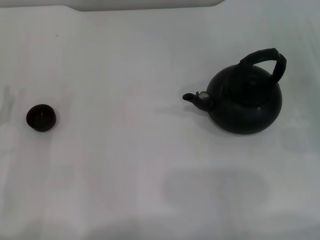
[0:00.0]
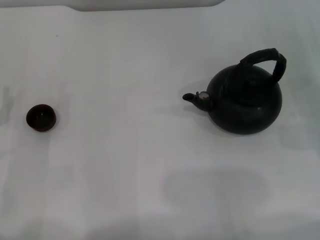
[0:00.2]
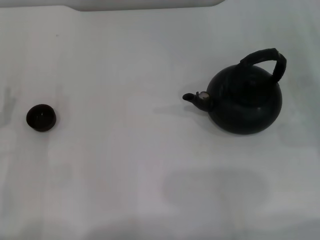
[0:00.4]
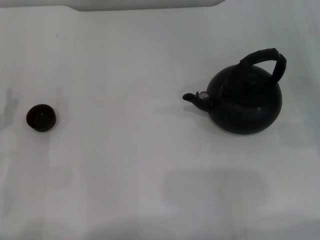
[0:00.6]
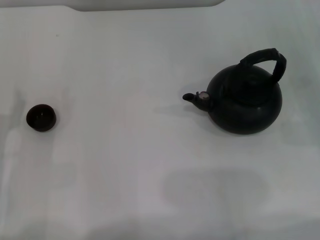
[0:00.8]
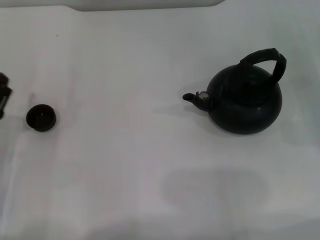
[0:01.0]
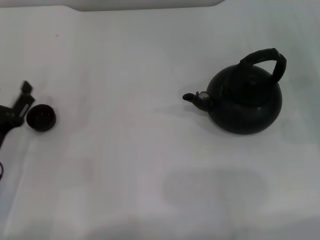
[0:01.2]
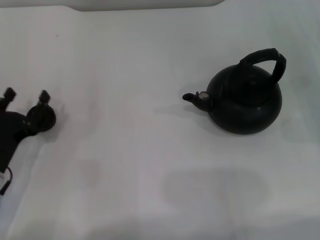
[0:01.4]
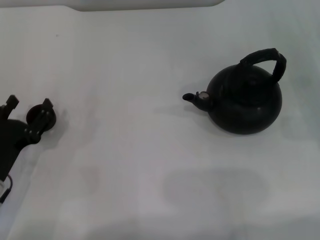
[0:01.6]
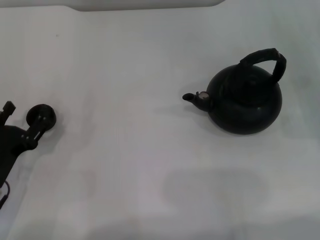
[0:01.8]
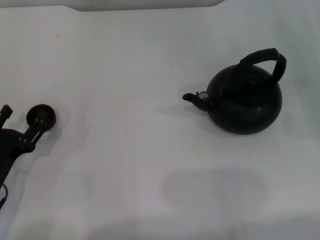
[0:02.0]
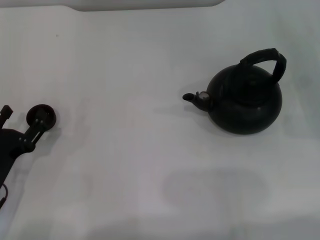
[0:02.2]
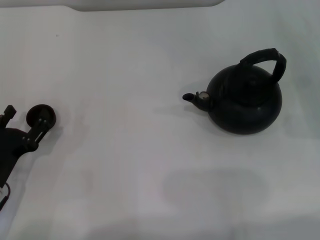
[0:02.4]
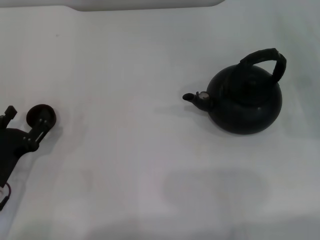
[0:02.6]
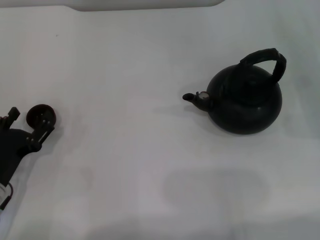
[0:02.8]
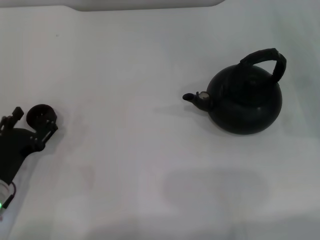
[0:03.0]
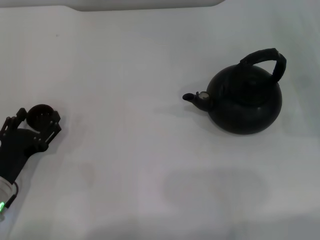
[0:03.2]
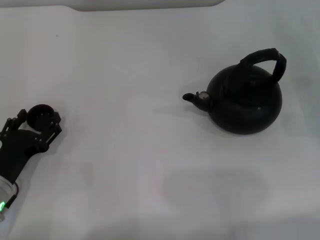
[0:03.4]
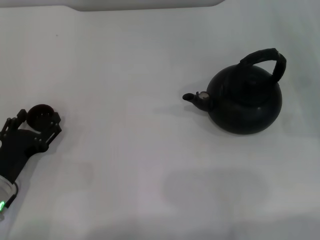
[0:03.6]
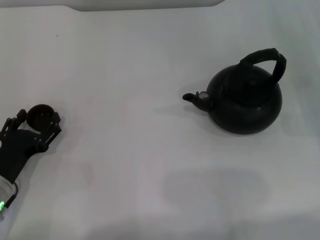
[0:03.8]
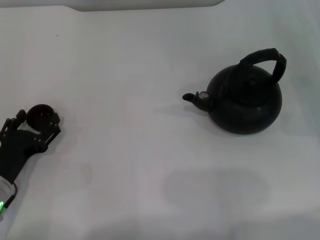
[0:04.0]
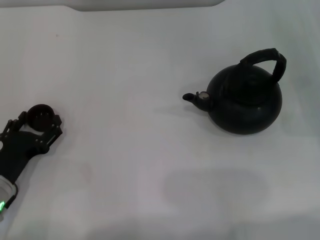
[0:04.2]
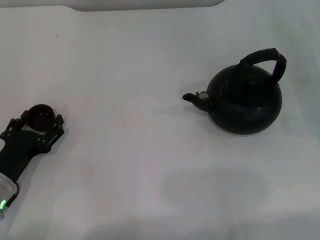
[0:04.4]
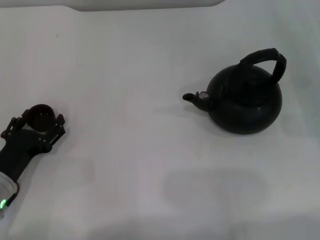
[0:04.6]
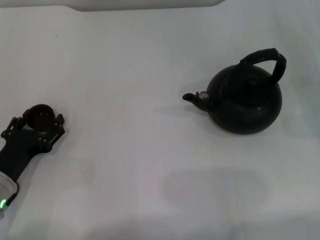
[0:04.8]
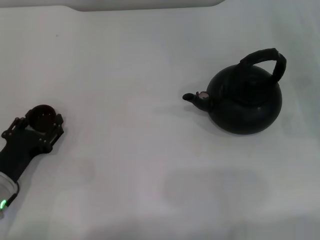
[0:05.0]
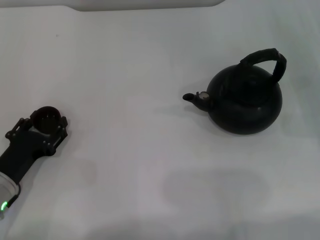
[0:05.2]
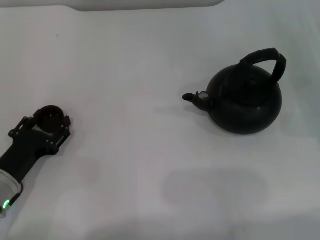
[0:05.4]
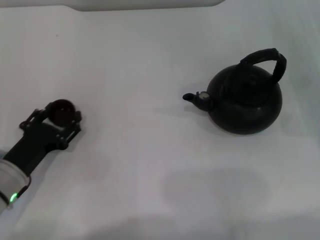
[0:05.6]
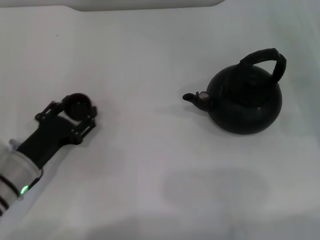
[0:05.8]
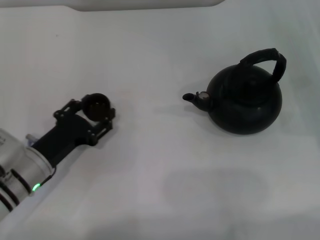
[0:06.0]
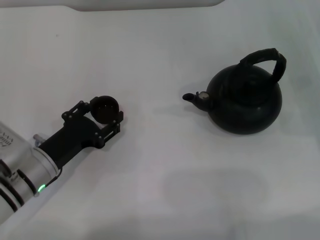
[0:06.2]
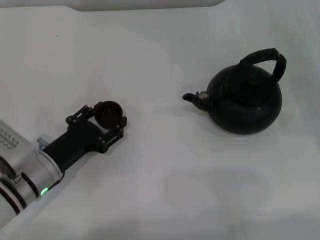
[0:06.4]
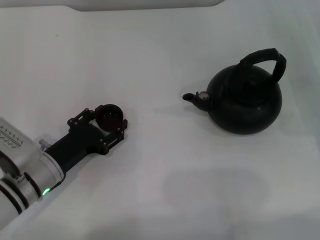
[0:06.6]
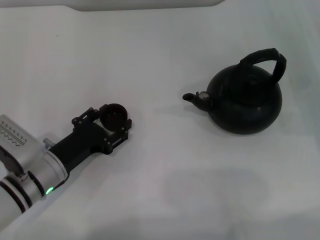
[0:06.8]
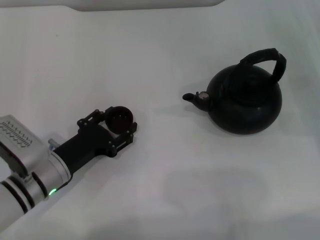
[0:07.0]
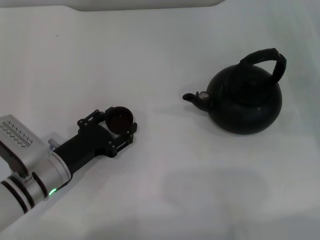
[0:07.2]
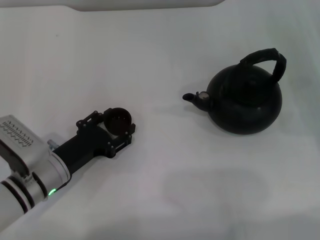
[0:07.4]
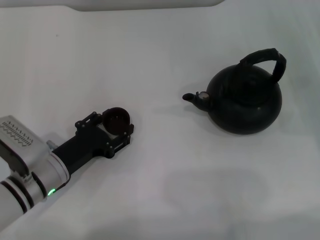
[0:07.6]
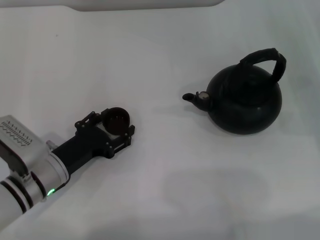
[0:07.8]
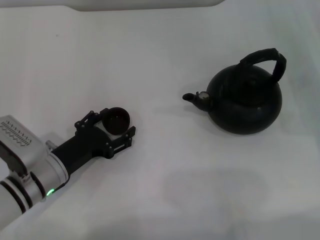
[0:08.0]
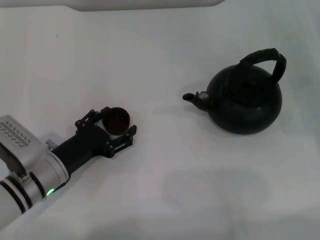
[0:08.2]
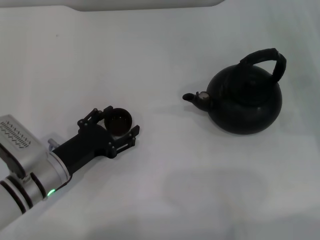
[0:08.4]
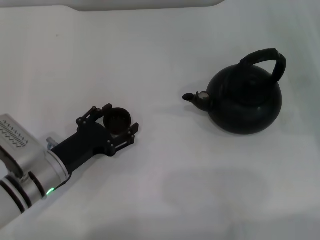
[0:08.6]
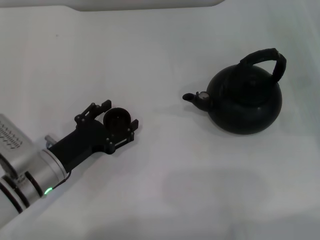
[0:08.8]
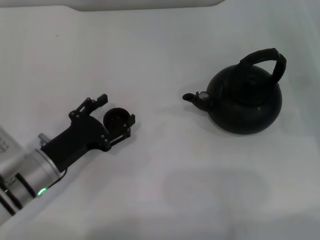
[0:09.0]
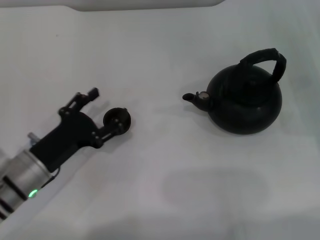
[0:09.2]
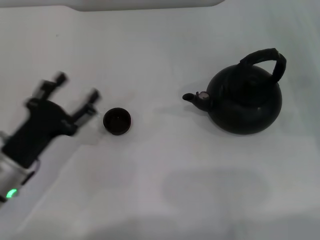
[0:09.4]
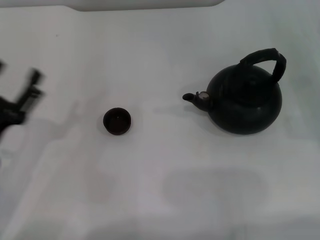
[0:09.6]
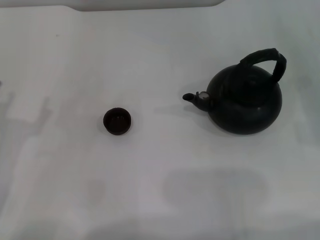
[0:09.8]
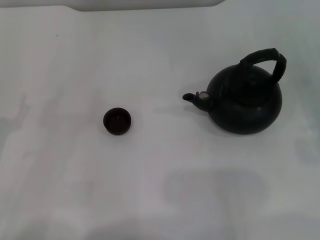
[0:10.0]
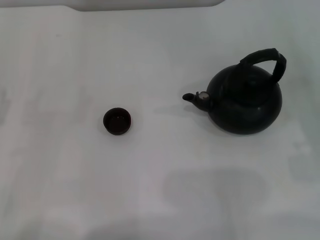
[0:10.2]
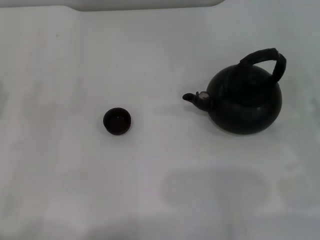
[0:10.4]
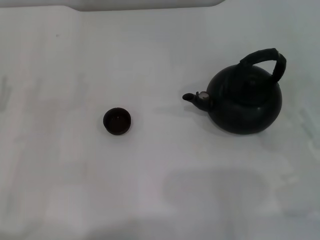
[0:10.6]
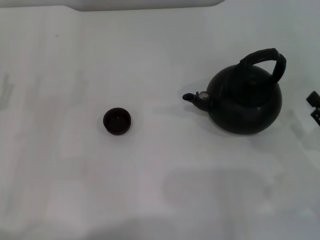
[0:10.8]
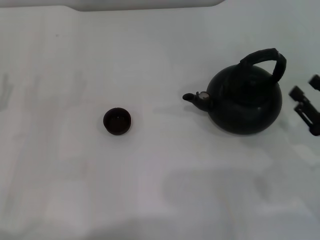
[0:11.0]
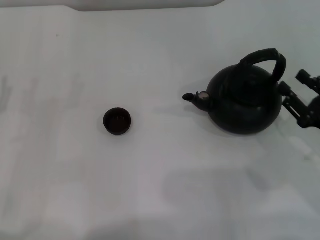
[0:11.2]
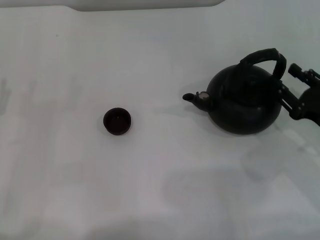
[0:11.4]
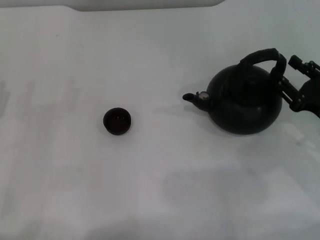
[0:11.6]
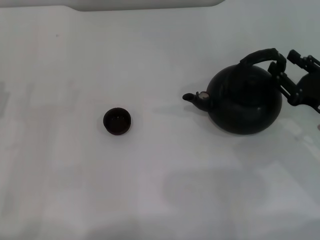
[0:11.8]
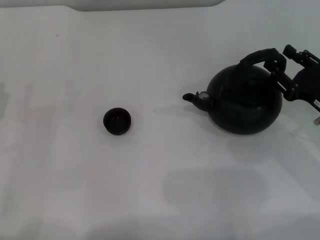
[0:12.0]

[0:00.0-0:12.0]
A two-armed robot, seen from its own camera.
Task of the whole recording: Grasp the handle of the teapot with one hand and pour tea into the teacup.
Step, 0:00.0 to 0:05.4: Pick up the teacup with the left gripper.
Step, 0:05.6 to 0:09.2: Place the teacup in the center of view with the left gripper.
0:00.0 to 0:01.6: The left gripper changes place by about 5 cm.
0:01.6 to 0:04.4: The grippers make only small movements.
0:04.4 to 0:06.0: The left gripper changes place by about 5 cm, and closes its fingers.
0:06.0 to 0:07.6: The left gripper opens.
0:07.6 to 0:09.0: The left gripper opens.
0:09.0 to 0:10.4: The right gripper travels backward by about 10 cm. The left gripper shifts some 10 cm to the left.
0:10.4 to 0:12.0: The right gripper goes approximately 10 cm forward and to the left.

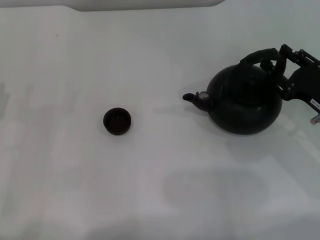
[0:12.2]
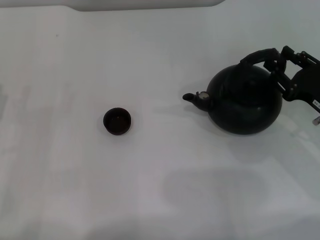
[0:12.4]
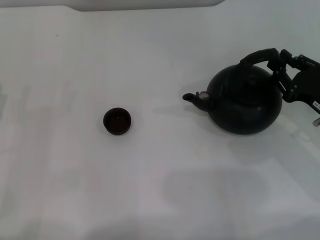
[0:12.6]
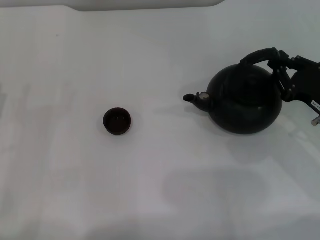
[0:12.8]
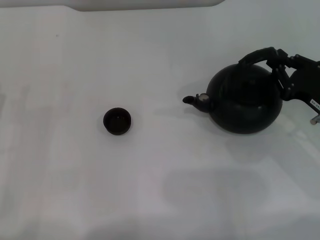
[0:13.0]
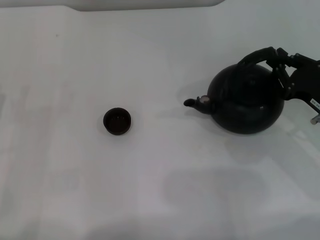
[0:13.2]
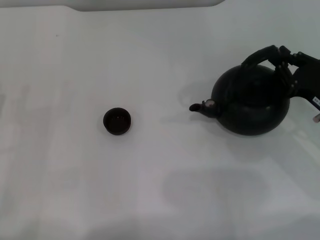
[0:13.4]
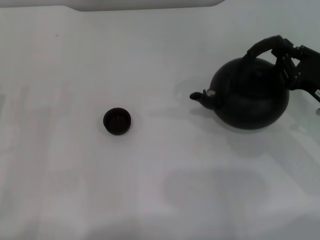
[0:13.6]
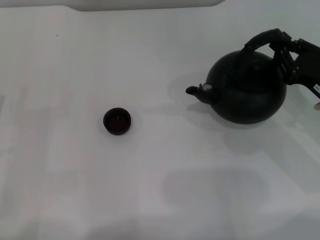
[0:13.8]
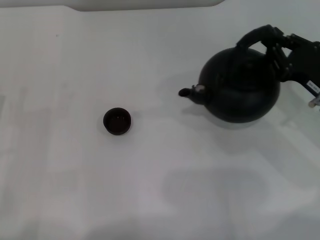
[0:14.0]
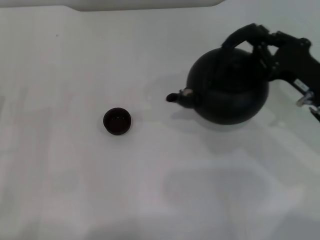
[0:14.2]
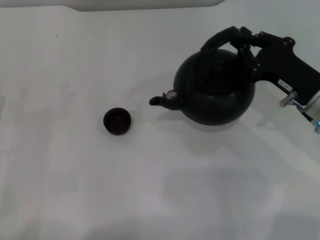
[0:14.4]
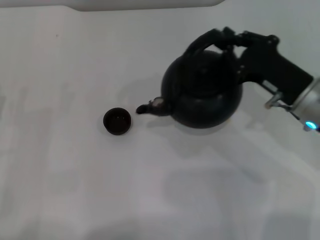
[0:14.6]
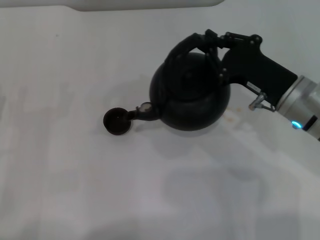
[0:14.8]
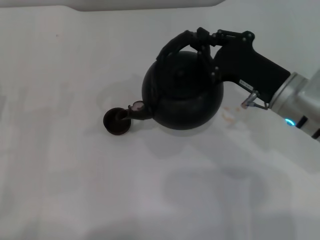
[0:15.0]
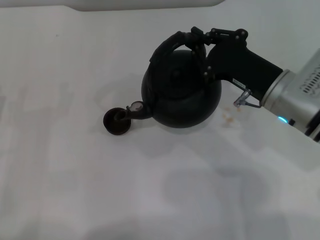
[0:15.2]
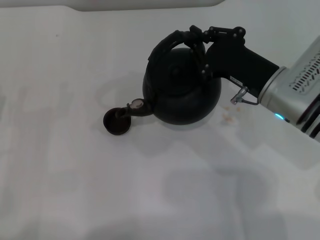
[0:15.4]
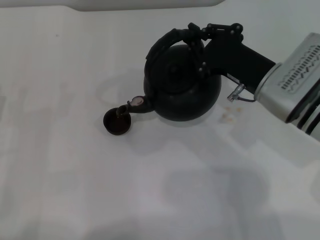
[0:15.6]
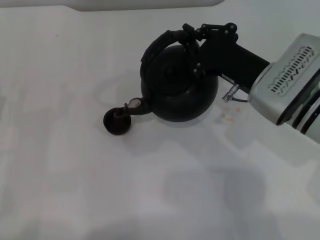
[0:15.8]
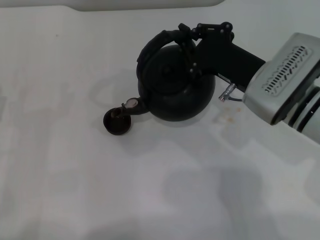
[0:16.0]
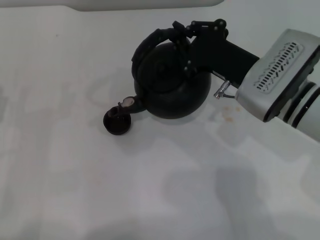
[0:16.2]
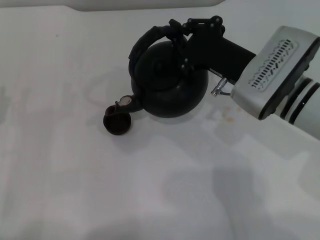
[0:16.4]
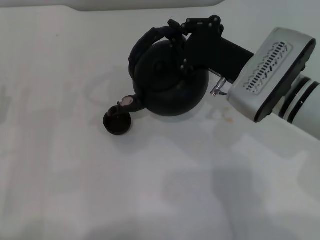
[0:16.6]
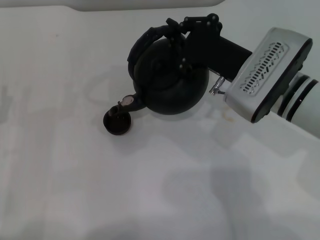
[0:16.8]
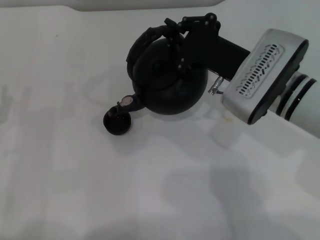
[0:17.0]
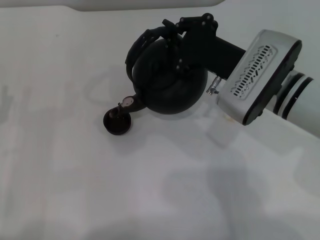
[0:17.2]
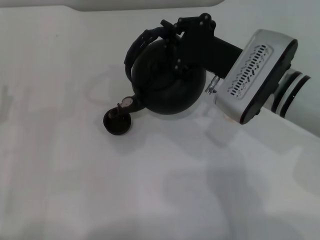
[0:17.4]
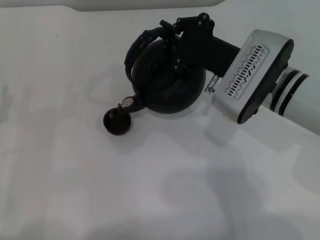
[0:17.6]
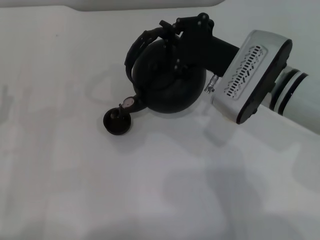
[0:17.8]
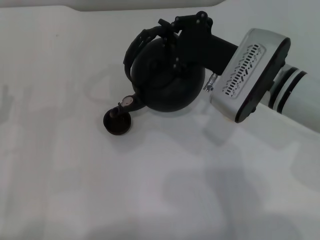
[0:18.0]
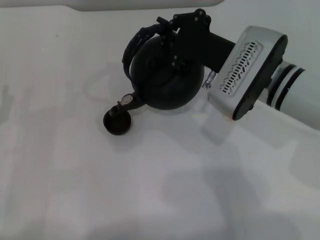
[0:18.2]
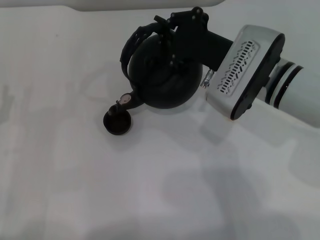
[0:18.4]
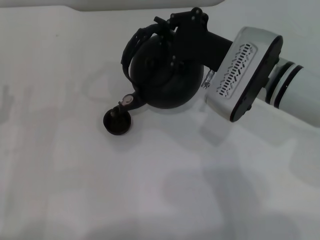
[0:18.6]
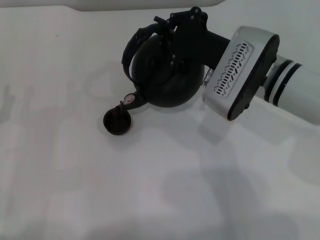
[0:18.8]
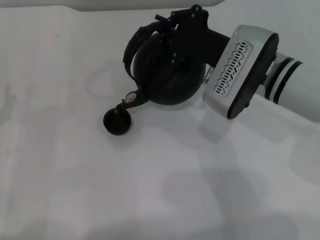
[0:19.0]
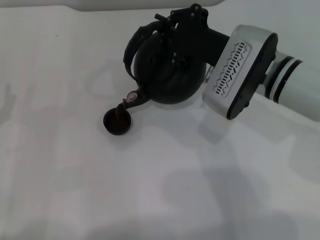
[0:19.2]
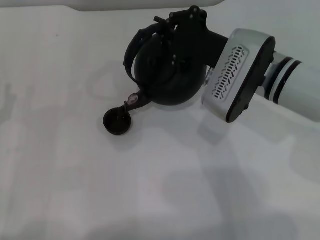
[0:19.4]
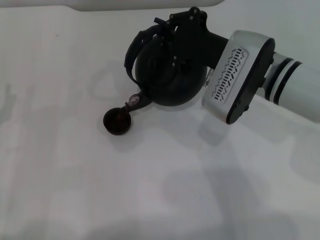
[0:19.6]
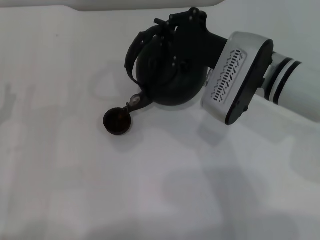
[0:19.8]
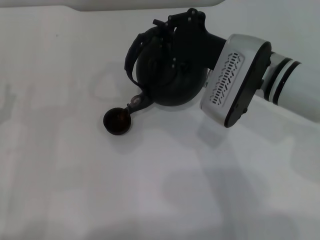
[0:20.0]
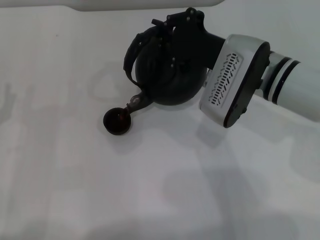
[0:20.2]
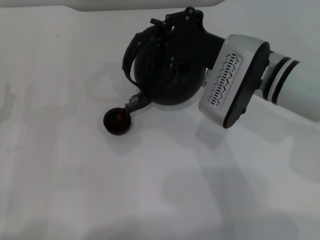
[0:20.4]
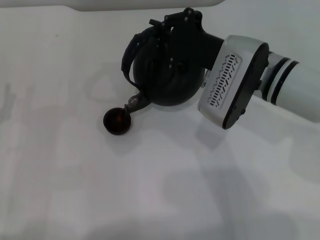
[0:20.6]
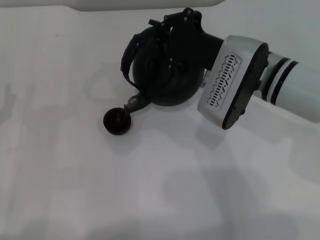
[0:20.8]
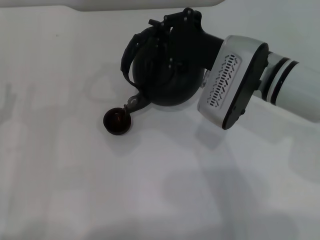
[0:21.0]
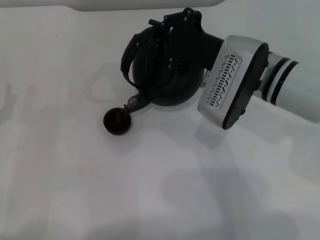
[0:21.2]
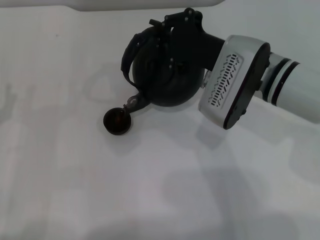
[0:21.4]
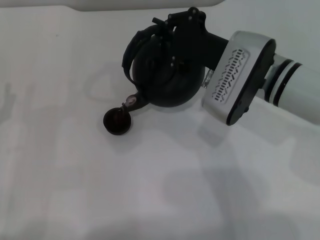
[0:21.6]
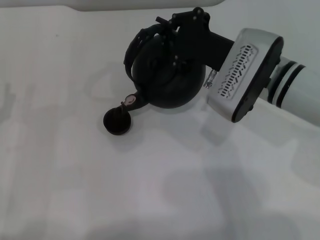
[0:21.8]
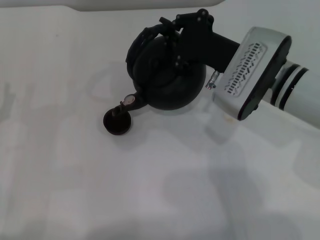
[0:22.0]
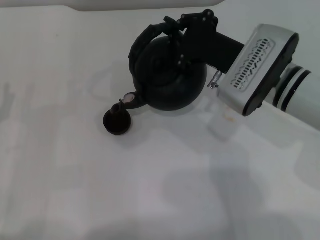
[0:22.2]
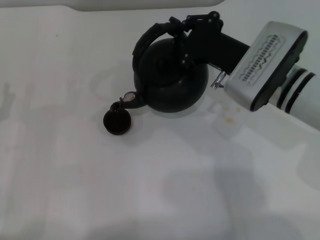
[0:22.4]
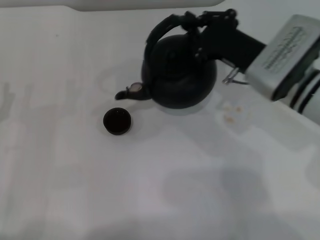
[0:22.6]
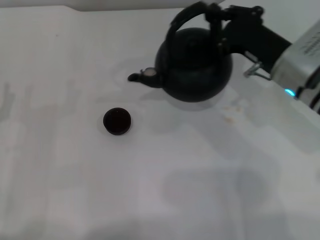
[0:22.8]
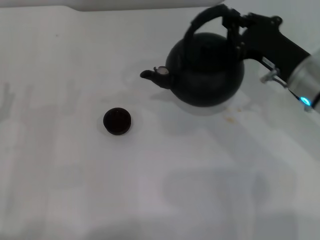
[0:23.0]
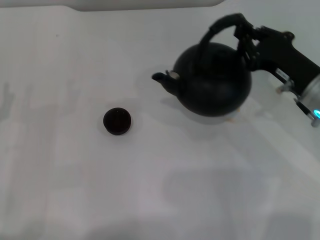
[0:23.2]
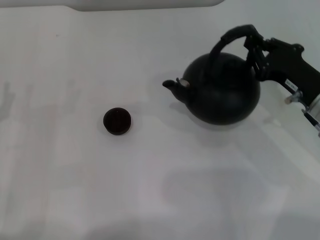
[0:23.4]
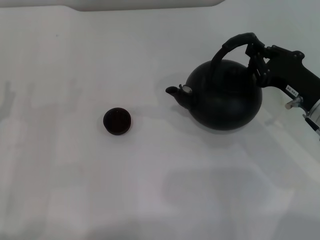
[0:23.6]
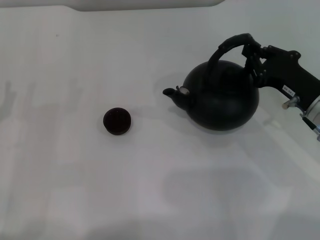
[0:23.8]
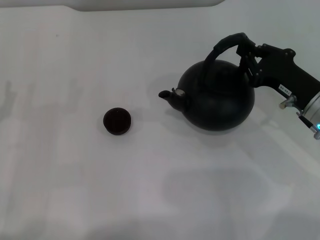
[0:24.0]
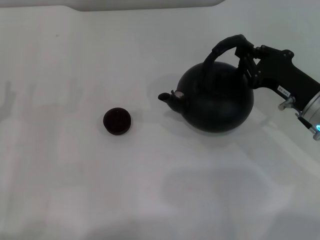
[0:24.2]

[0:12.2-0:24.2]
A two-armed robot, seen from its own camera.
Task of the whole recording: Grasp the handle of the teapot with one hand and pour tea into the teacup.
Step, 0:14.2 to 0:22.8: Pour tea into the teacup with the right gripper.
0:12.2 to 0:13.8: The right gripper closes its fingers.
0:13.8 to 0:15.2: The right gripper is displaced to the left by about 10 cm.
0:15.2 to 0:16.6: There are only small adjustments of the grippers.
0:16.6 to 0:19.8: There are only small adjustments of the grippers.
0:19.8 to 0:21.2: Neither gripper changes place.
0:22.6 to 0:24.2: The right gripper heads to the right and downward, covering roughly 10 cm.
